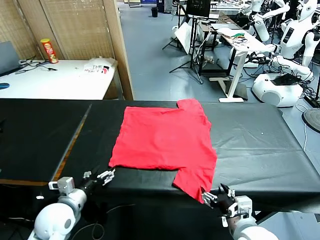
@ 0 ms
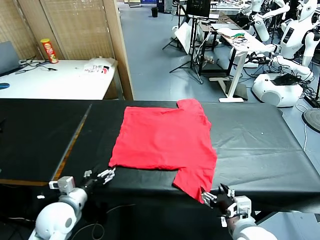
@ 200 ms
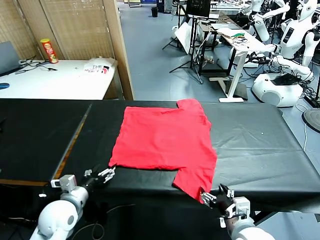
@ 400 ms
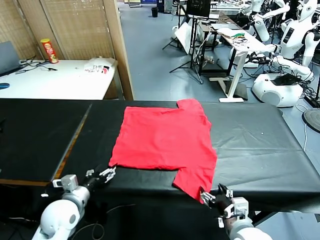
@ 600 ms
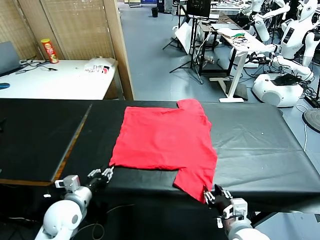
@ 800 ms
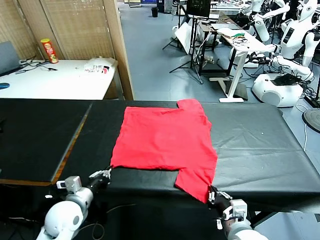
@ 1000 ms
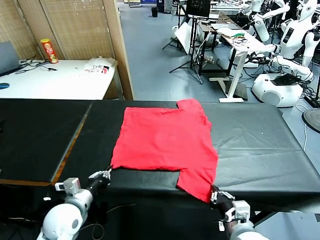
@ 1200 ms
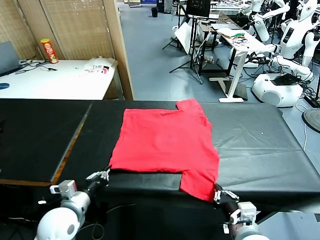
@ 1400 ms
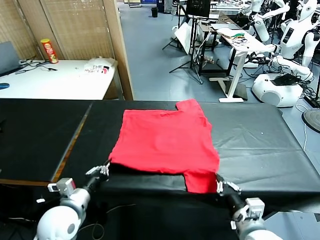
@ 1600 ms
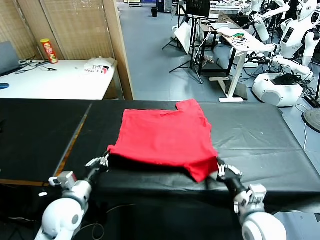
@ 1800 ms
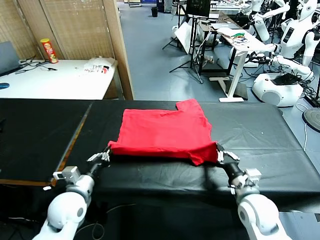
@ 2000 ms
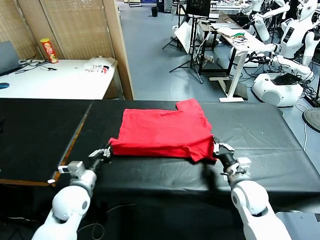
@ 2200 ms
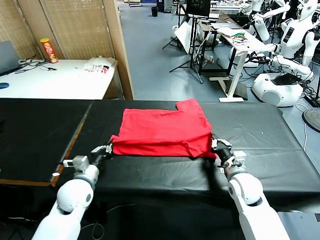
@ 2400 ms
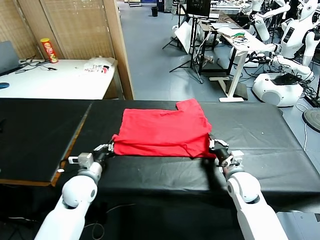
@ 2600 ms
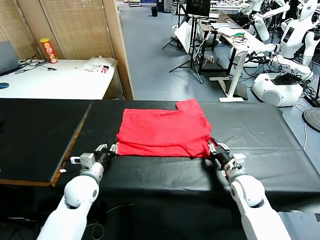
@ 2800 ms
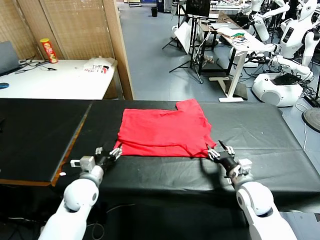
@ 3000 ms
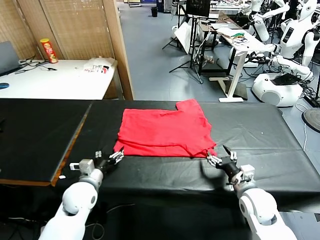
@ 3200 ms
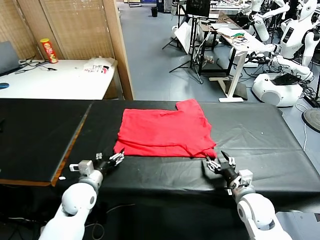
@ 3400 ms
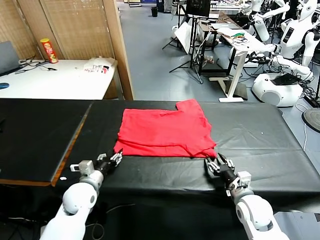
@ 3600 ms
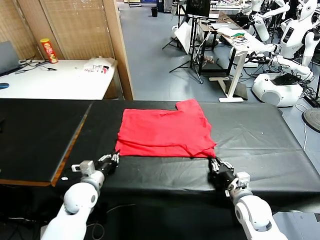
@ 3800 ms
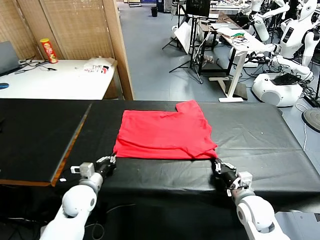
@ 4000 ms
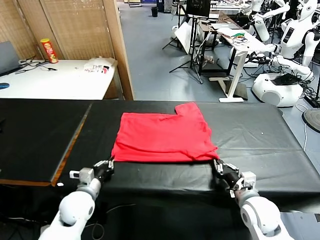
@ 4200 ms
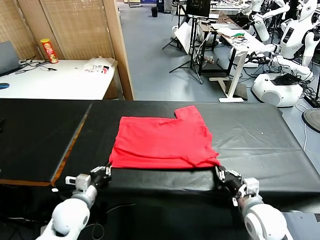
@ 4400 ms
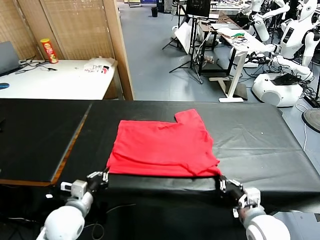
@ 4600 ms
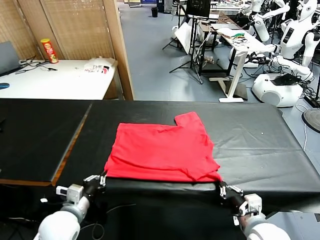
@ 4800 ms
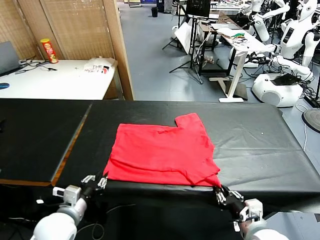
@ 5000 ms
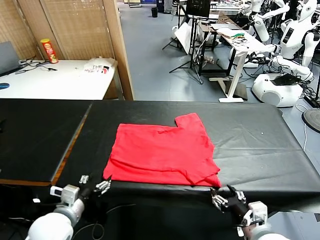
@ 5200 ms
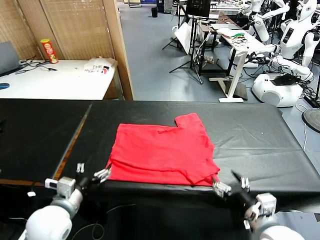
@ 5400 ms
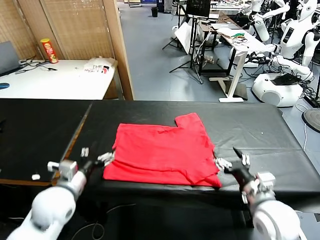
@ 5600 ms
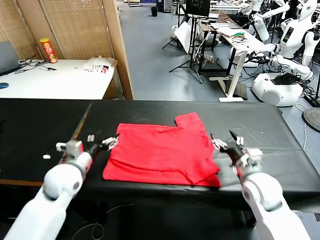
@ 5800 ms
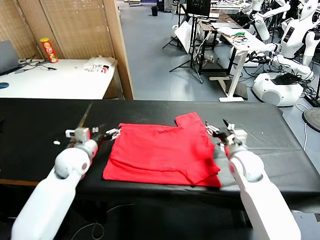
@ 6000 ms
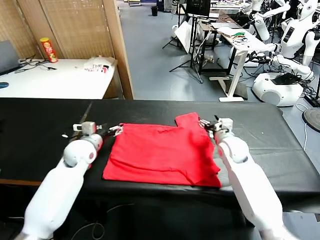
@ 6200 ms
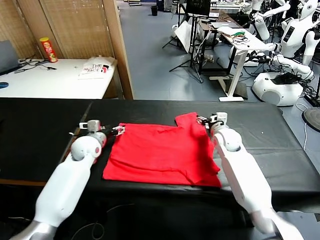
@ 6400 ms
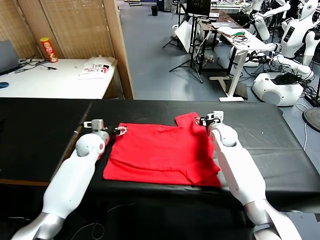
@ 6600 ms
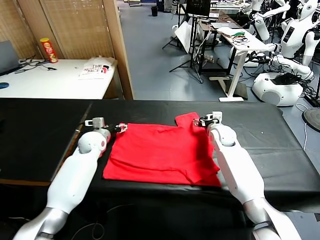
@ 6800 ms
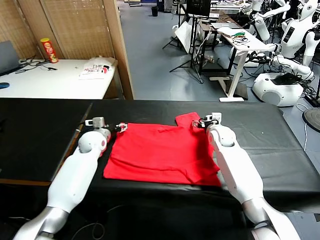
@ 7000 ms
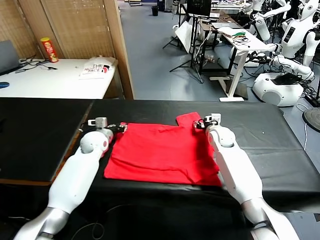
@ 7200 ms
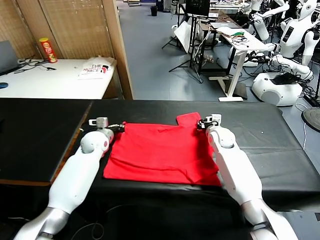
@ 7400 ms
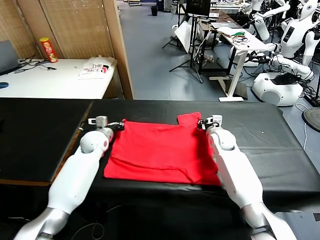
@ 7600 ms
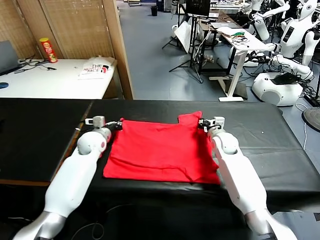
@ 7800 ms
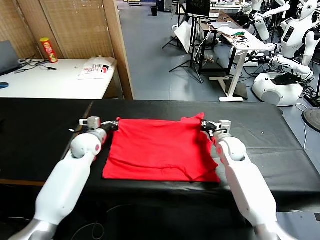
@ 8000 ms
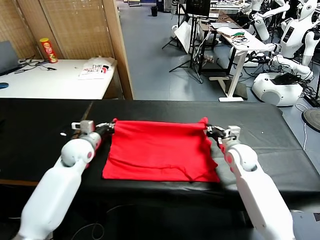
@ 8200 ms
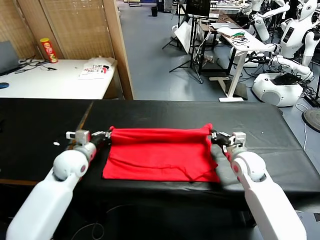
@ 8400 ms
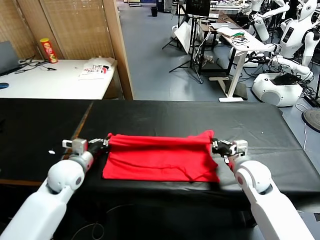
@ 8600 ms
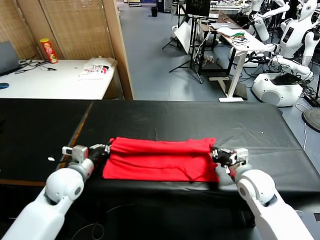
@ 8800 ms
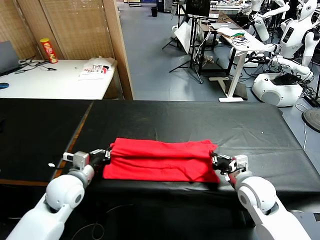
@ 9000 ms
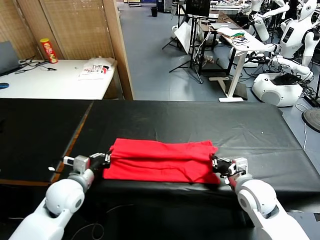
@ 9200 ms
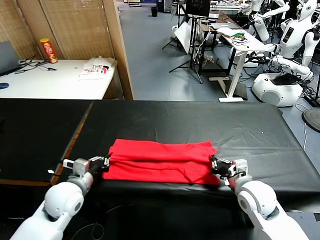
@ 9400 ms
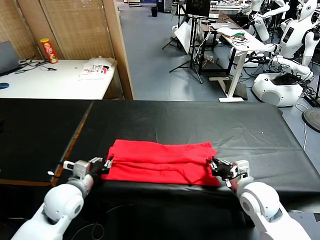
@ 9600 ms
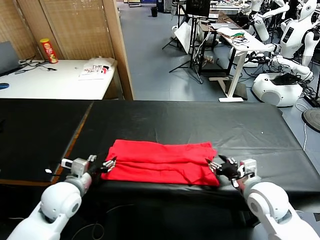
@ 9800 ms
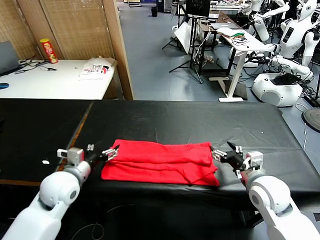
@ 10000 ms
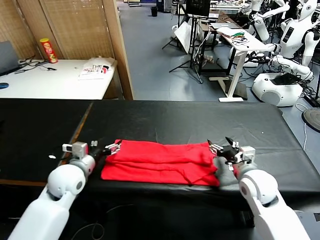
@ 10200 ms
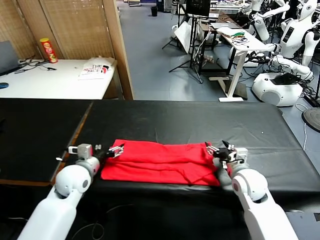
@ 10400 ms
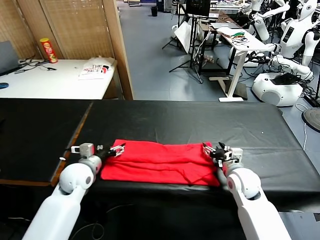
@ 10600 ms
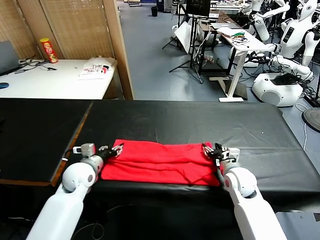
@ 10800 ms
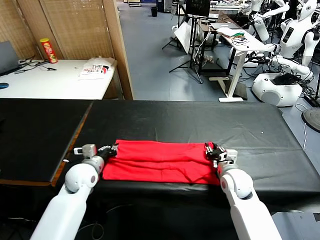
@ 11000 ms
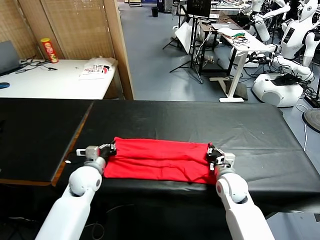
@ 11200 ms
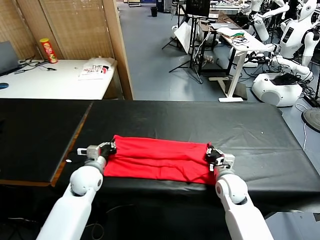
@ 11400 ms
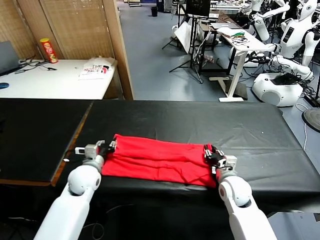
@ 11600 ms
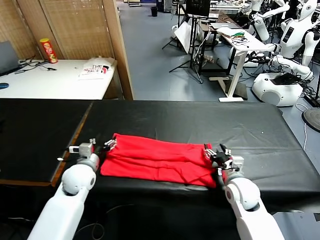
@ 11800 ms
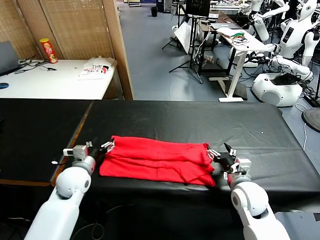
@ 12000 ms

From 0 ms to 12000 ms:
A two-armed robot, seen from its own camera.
Task of the whole recording: fold and organize the clothes.
Step, from 0 ms to 1000 ms: use both grippers simultaneously to clamp the lower edge of the clothing fabric.
Step, from 1200 ms to 3000 ms: use both grippers to drag the lower edge of the fabric forward and fold it over the upper edge.
Step, from 3200 ms to 5200 ms: Drag the clothes downward with both gripper.
Step, from 5400 ms to 7600 ms: use both grippers simultaneously to clamp the upper edge of the clothing fabric.
Step, from 7800 ms to 9800 ms: use both grippers to drag the upper edge of the fabric backward and fold it over the lower edge.
From 1600 ms to 3000 ms: The left gripper travels forward by approximately 10 cm, and opens its fingers; the right gripper moves forward, about 5 cm, and opens its fingers.
From 3000 ms to 4400 ms: Both grippers travel together backward, some 10 cm. The left gripper closes. The right gripper closes up.
From 4400 ms to 6000 ms: The left gripper moves forward and upward, some 15 cm, and opens; the right gripper shifts about 25 cm forward, and opens its fingers.
From 6000 ms to 7600 ms: The left gripper heads forward, covering about 10 cm, and closes up. The right gripper changes place by some 5 cm, and closes.
From 7600 ms to 9000 ms: The grippers both shift backward by about 20 cm.
From 9000 ms to 10400 ms: The left gripper opens; the right gripper moves forward, roughly 5 cm, and opens its fingers.
From 10400 ms to 12000 ms: The right gripper is displaced backward by approximately 5 cm, and closes, then opens again. Meanwhile the left gripper closes, then reopens.

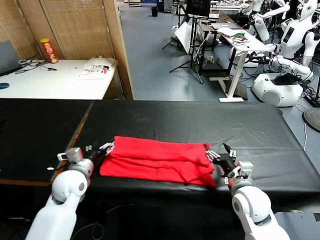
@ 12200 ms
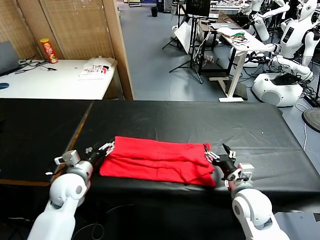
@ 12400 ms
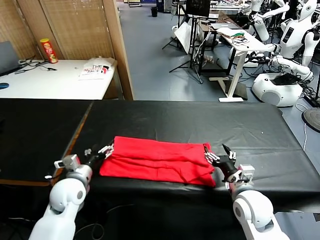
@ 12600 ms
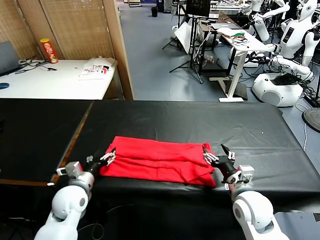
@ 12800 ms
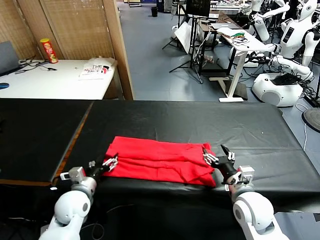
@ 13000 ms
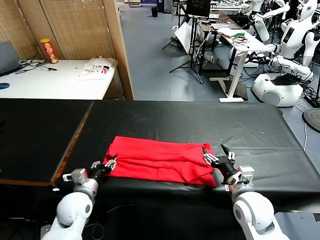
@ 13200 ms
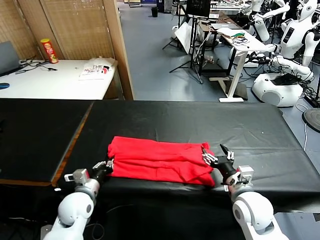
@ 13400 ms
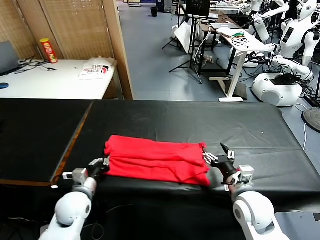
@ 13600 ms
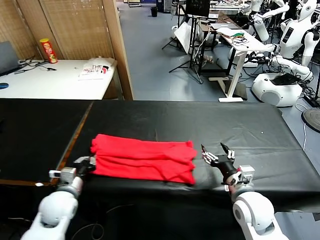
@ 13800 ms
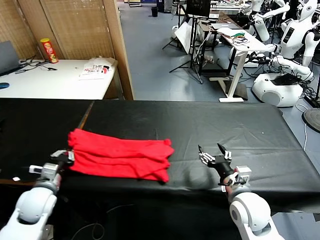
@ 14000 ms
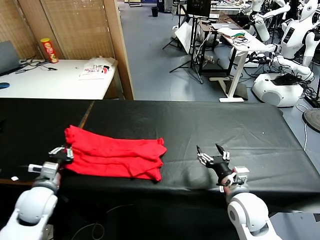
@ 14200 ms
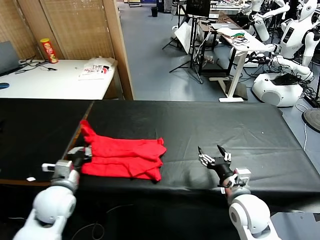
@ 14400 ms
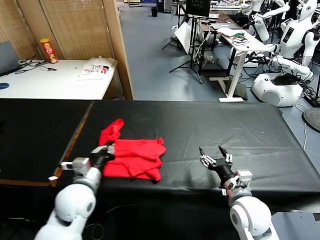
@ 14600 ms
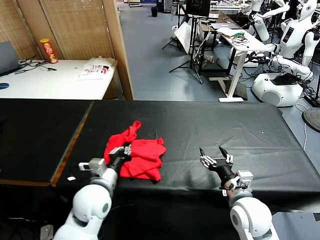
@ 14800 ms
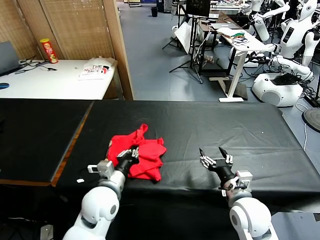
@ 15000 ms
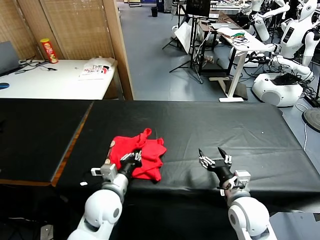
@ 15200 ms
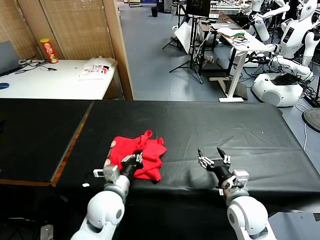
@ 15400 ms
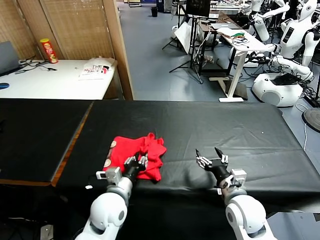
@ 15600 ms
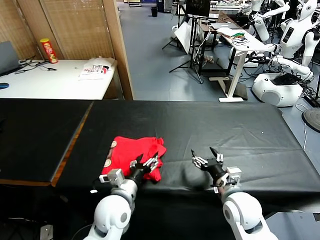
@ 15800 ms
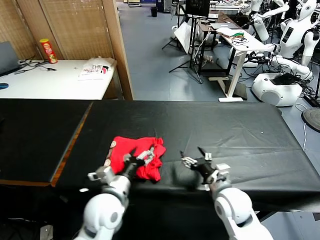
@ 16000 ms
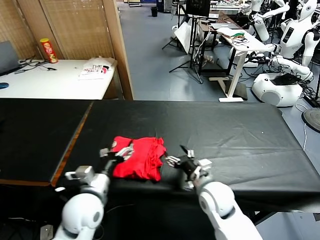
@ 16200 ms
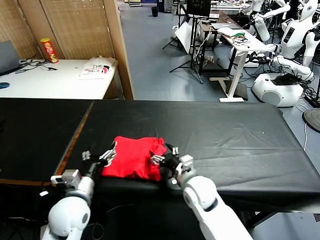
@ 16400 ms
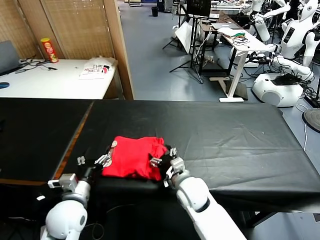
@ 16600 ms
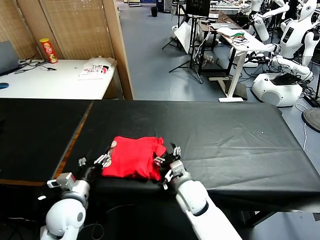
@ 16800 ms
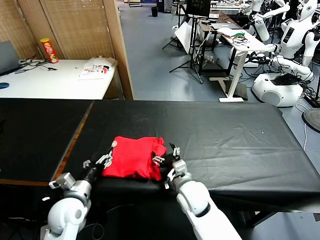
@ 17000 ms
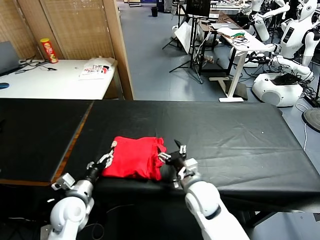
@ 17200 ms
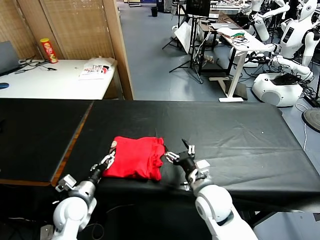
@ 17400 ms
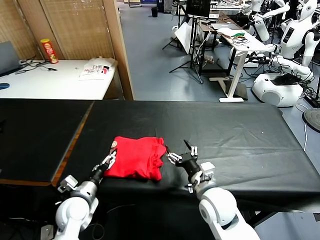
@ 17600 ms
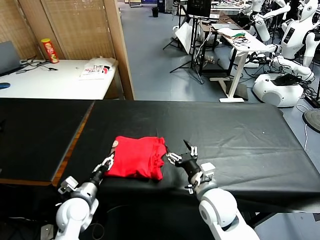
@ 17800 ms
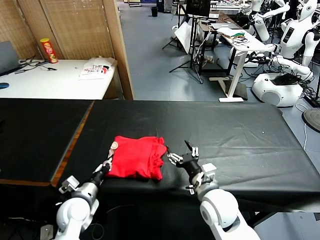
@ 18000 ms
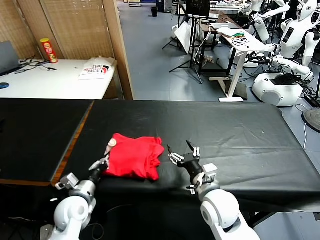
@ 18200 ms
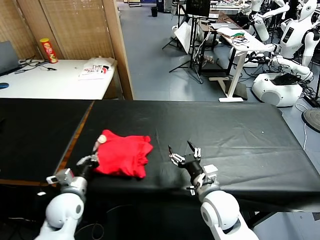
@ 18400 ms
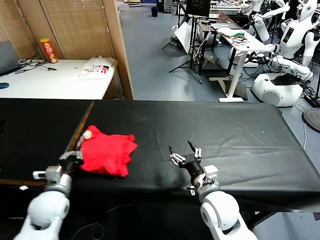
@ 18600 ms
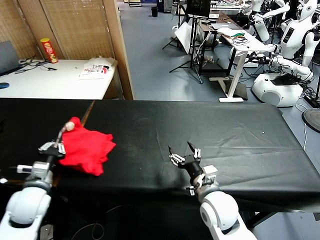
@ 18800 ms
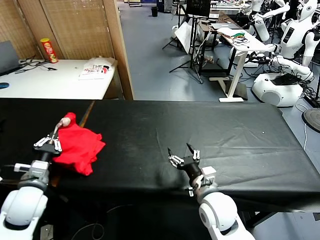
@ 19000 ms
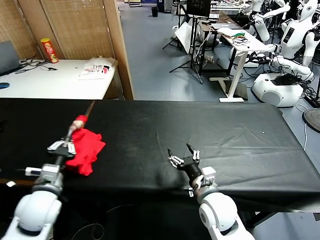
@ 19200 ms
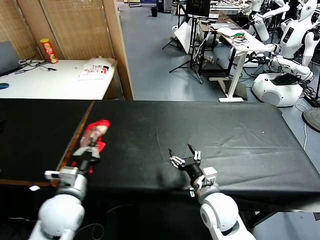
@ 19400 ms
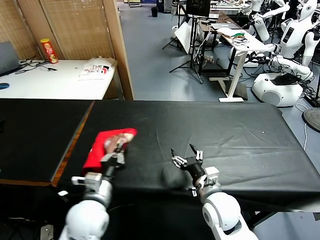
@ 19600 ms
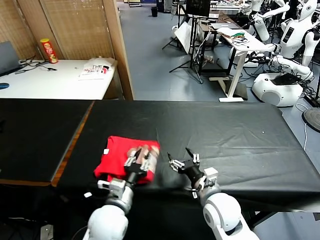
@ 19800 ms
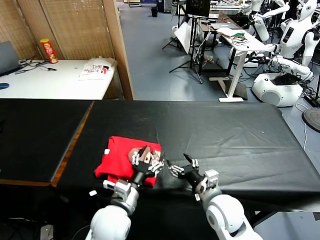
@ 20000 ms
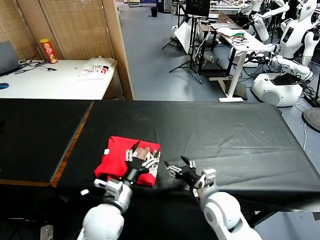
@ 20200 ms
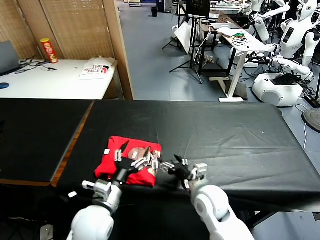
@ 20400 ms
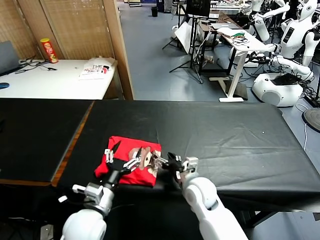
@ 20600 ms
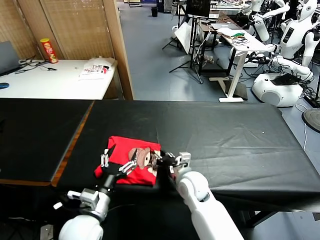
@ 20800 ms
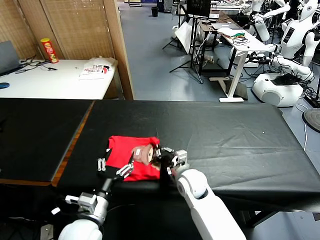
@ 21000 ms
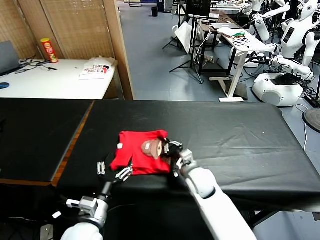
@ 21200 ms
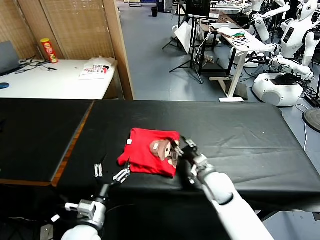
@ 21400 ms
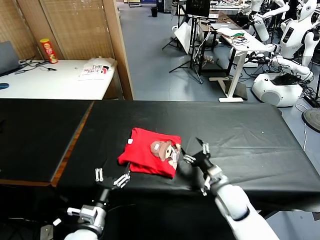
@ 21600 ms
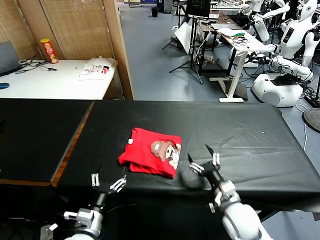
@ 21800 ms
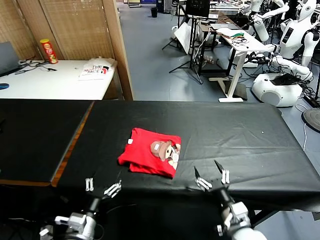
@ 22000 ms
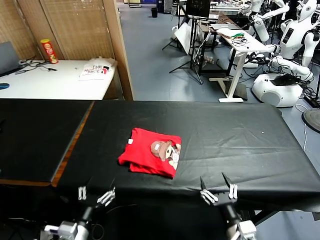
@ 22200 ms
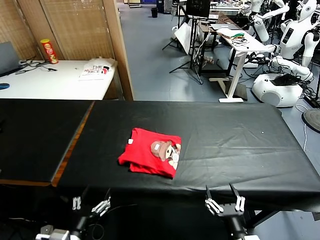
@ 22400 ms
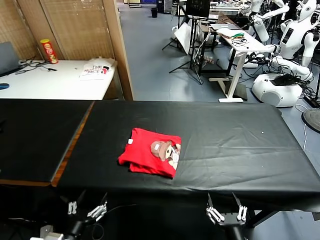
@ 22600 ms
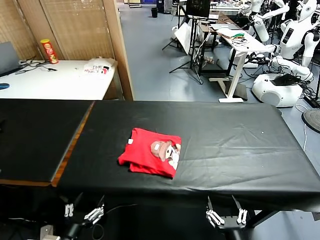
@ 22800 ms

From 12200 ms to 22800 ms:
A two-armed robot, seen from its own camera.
Task of the whole recording: fold and organize the clothes.
Step, from 13800 ms to 16200 ms: use the left gripper to drag the left edge of the fabric to the left and folds it over the right edge.
Step, from 16400 ms to 20200 ms: Flip the folded clothes over with left gripper.
Step, from 20400 ms to 21400 ms: Drag the clothes to the center of the table.
From 12200 ms to 13800 ms: The left gripper is displaced backward by roughly 5 cm, and closes up.
From 13800 ms to 15200 ms: The left gripper goes roughly 15 cm to the right.
From 15200 ms to 16800 ms: The left gripper is displaced to the left by about 10 cm, and opens up. The right gripper is displaced to the left and forward by about 15 cm.
From 16800 ms to 18200 ms: The left gripper changes place by approximately 5 cm, and closes its fingers, while the right gripper is displaced to the right, upward and backward by approximately 10 cm.
From 18200 ms to 19800 ms: The left gripper moves to the right and upward, some 15 cm.
From 19800 ms to 21200 ms: The left gripper ends up approximately 5 cm from where it was, and opens, while the right gripper goes roughly 10 cm forward, and closes its fingers.
From 21200 ms to 22800 ms: The right gripper heads backward, covering some 30 cm, and opens its fingers; the left gripper goes approximately 10 cm backward and to the left.
